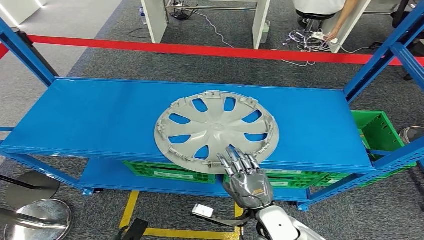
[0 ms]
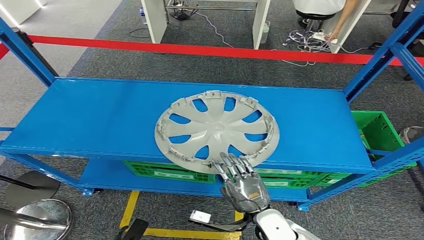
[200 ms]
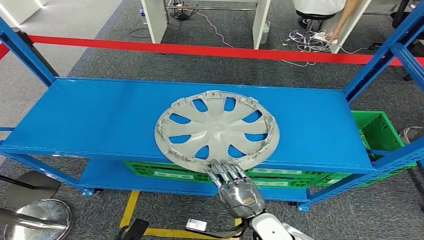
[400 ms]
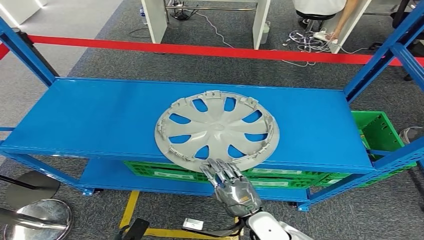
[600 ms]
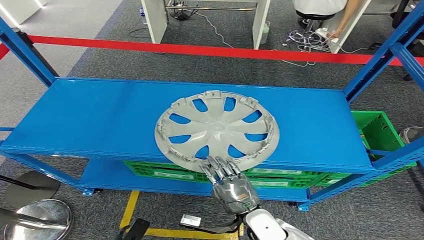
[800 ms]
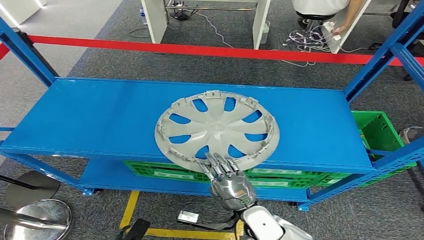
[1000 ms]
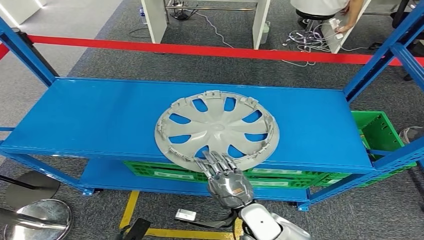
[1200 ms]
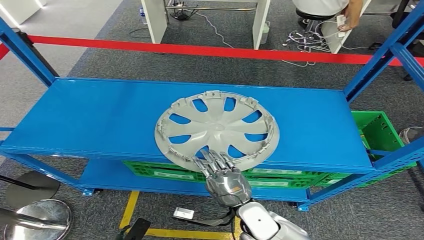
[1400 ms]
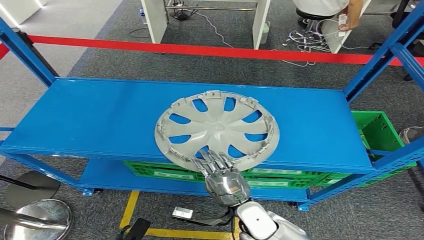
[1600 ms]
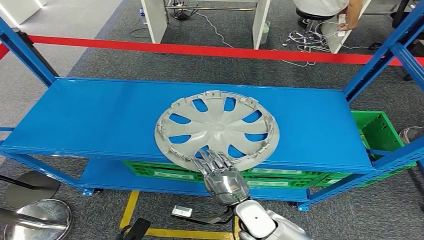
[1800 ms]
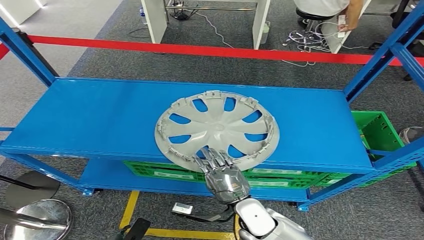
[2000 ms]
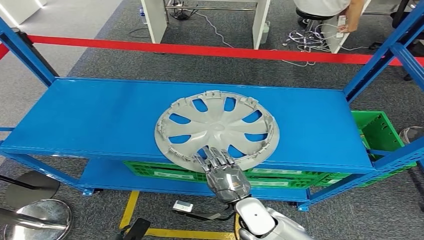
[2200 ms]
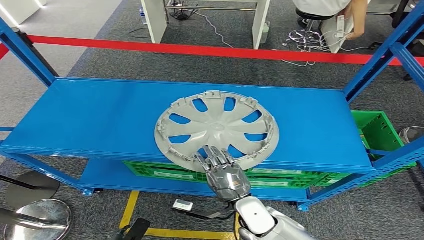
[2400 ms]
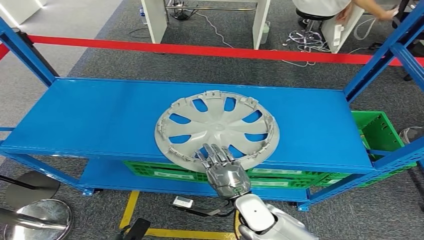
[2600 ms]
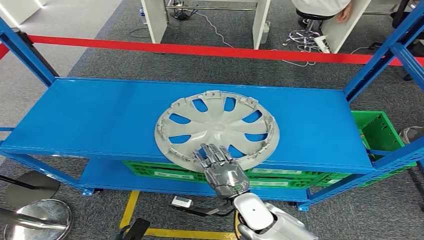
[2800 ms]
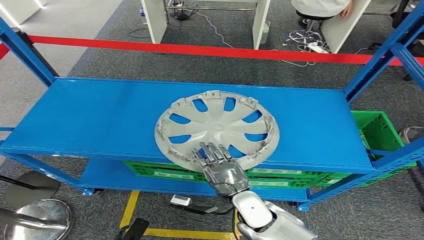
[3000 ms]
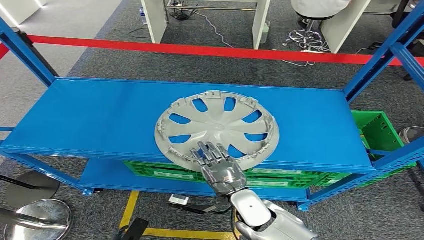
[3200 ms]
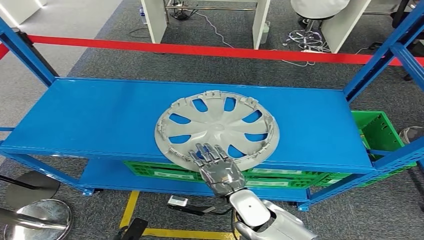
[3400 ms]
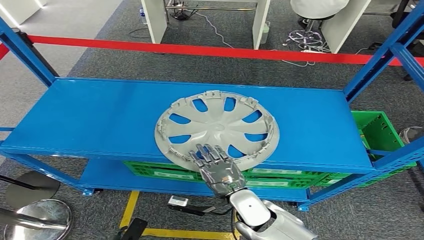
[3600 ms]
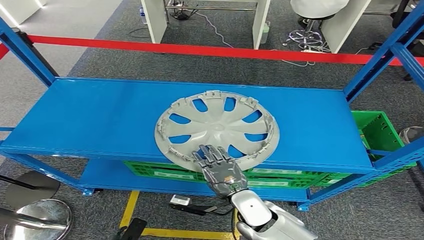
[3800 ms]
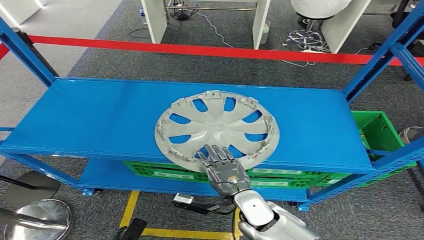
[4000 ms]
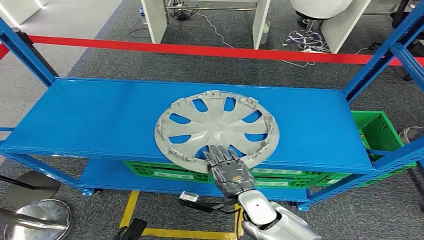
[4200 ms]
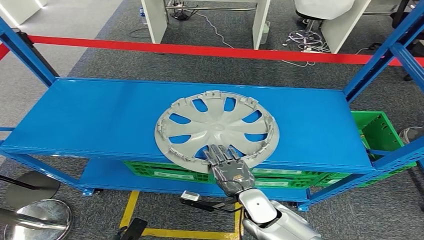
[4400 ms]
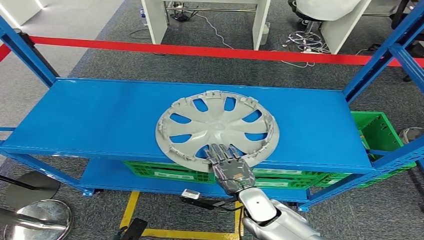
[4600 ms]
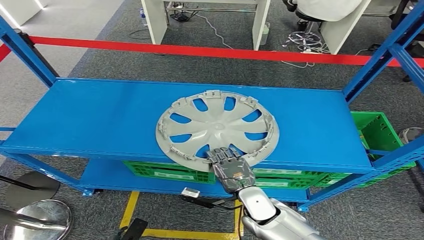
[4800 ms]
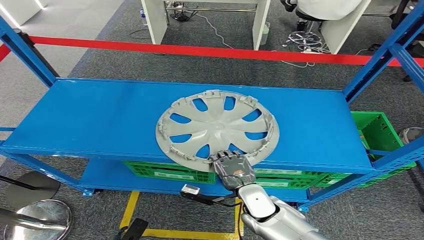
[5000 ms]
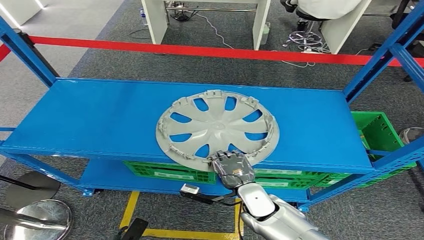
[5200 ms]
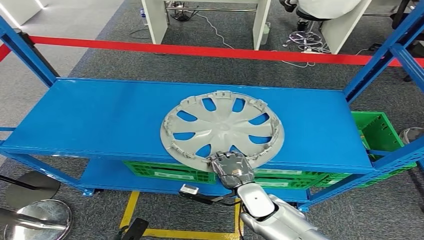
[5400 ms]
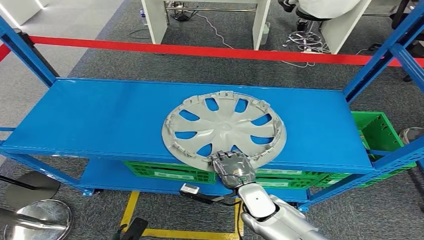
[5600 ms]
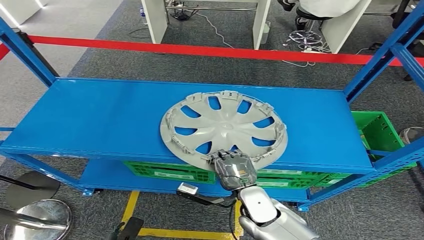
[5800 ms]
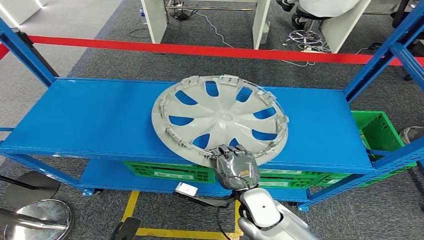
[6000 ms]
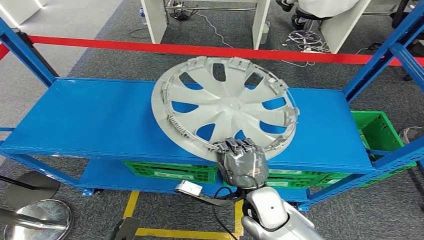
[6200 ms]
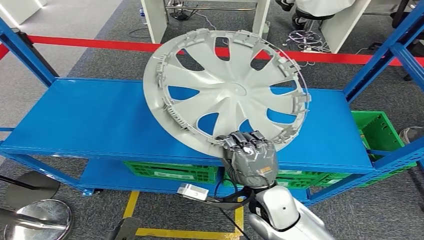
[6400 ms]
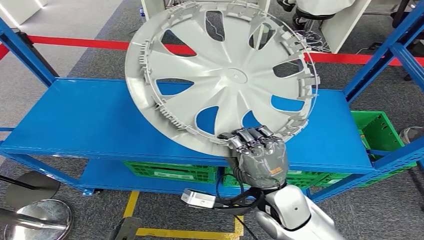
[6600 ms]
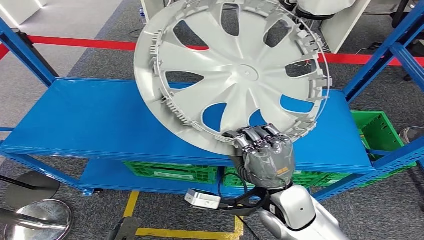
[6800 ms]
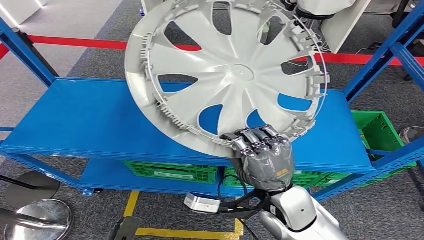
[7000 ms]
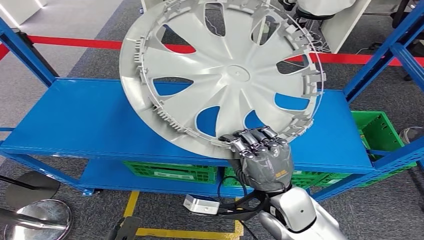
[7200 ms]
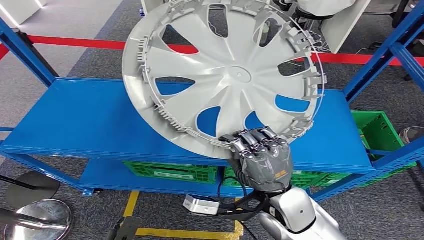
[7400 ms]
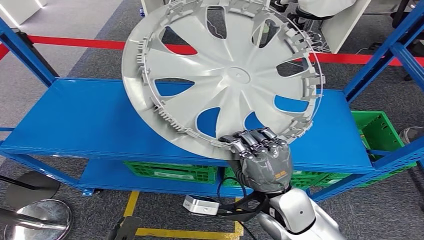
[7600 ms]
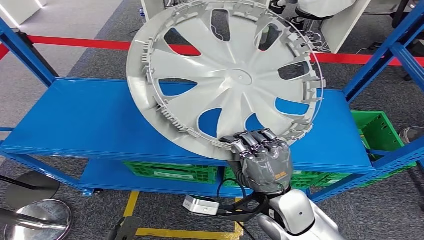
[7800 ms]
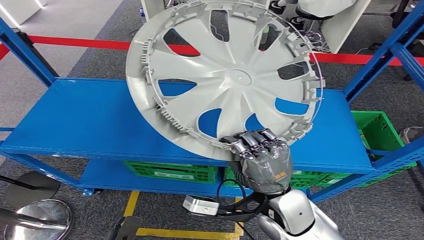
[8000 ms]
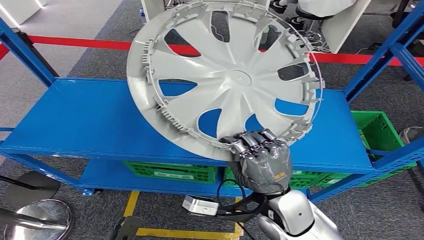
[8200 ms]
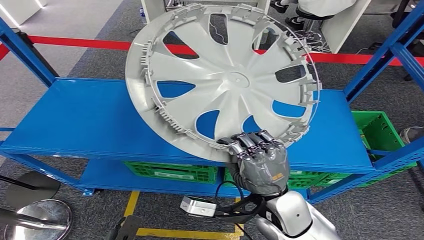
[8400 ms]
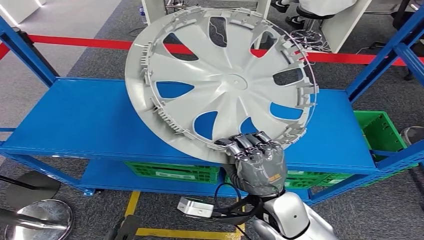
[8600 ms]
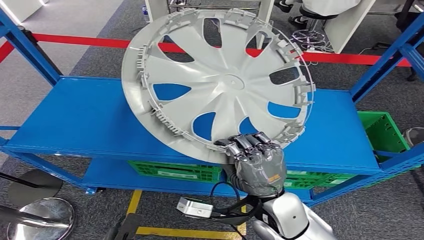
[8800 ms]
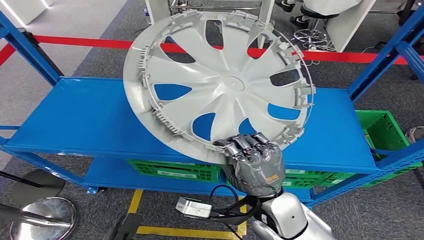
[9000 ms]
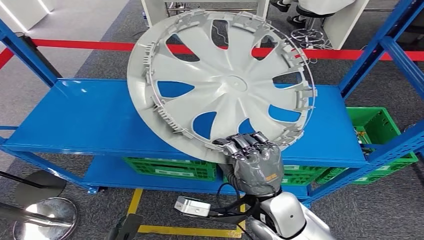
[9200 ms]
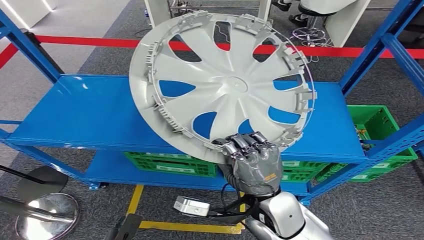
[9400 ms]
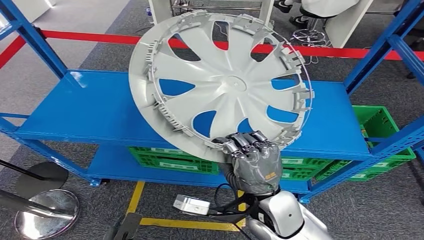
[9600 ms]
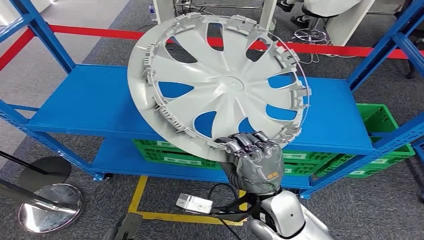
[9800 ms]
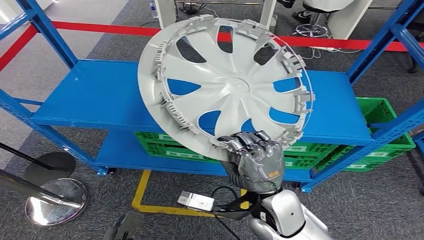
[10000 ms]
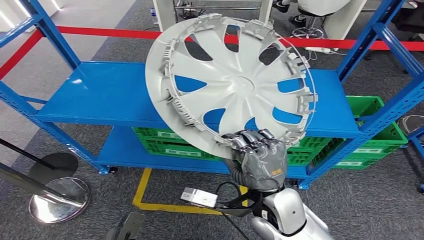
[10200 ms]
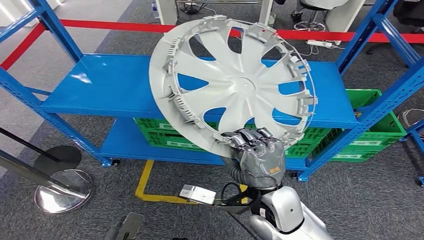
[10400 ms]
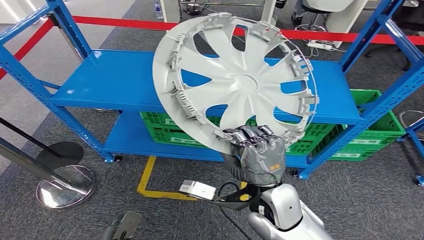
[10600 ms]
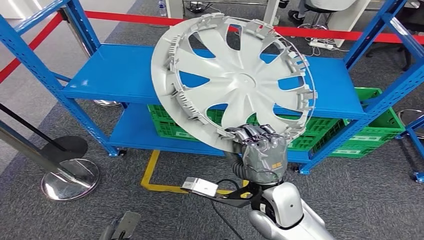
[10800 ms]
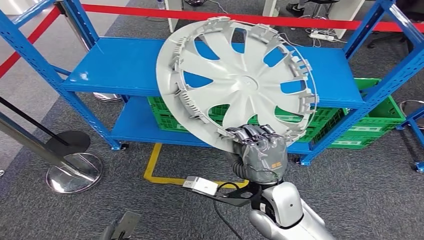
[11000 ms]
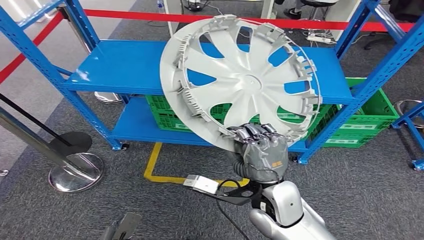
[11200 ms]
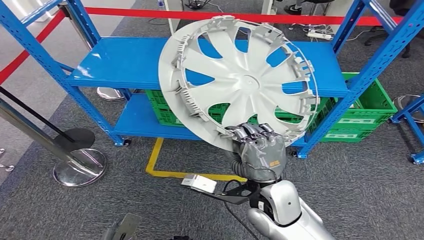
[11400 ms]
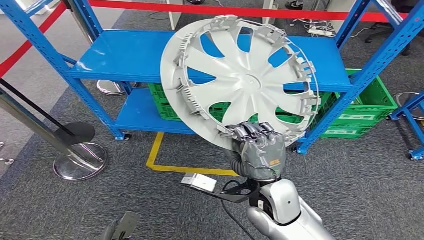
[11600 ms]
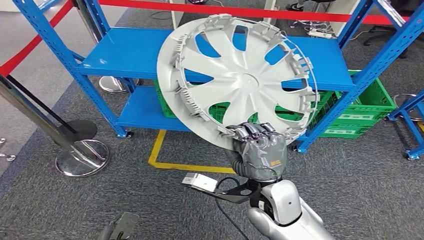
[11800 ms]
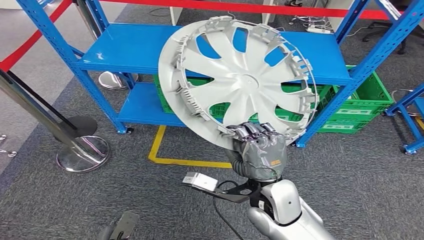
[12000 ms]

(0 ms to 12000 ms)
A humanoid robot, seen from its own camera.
Step, 0 ms - 6800 ms: Pick up the small parts from the shelf.
0 ms - 3000 ms: The hands move only a little.
3000 ms - 4400 ms: The hands stay close to where they were, moving slightly.

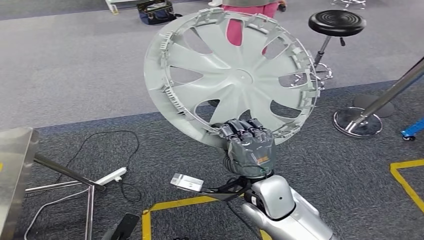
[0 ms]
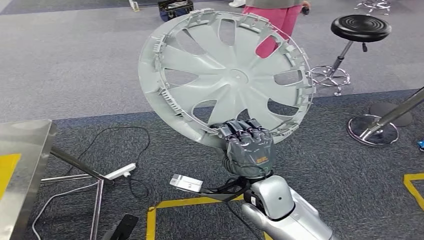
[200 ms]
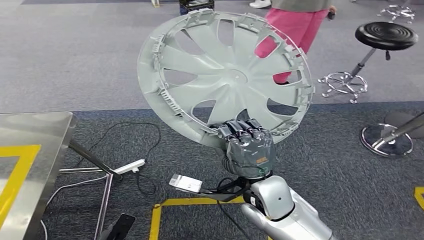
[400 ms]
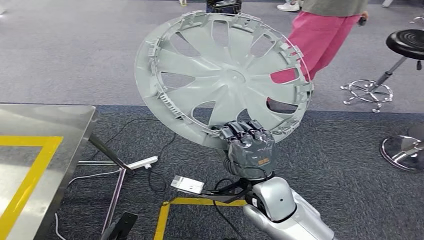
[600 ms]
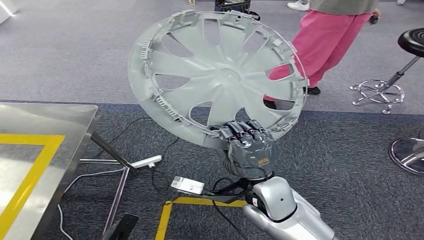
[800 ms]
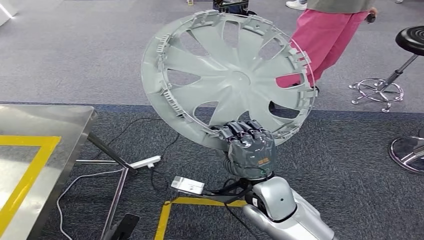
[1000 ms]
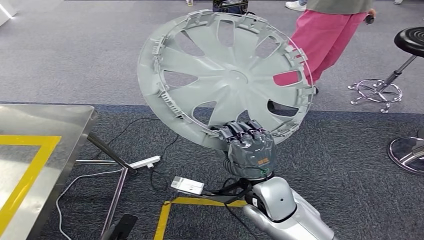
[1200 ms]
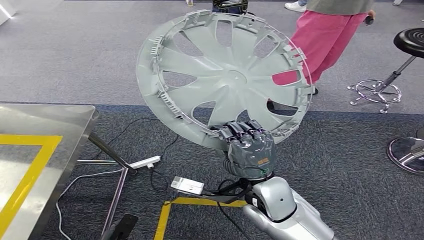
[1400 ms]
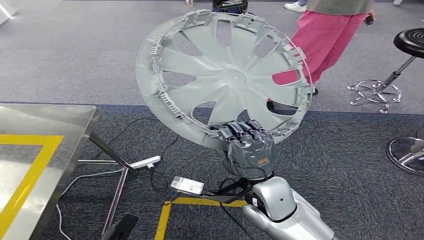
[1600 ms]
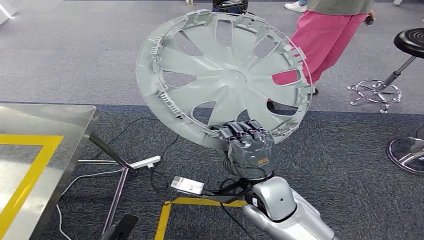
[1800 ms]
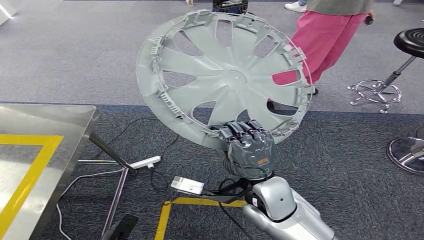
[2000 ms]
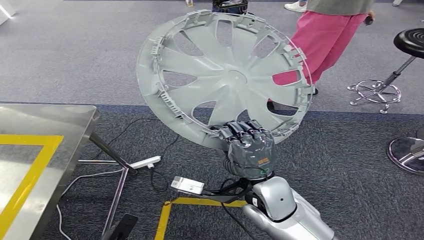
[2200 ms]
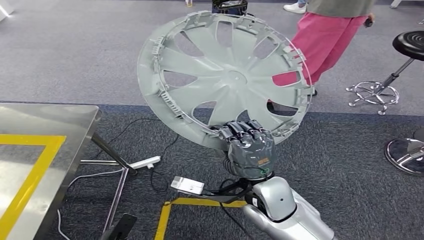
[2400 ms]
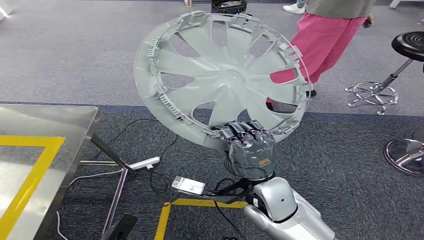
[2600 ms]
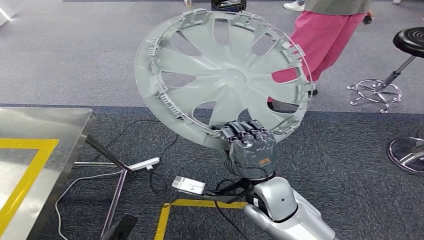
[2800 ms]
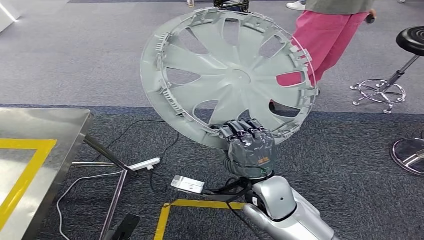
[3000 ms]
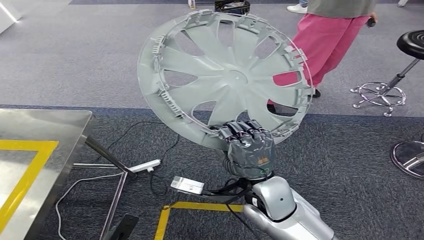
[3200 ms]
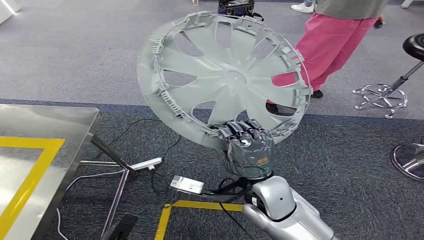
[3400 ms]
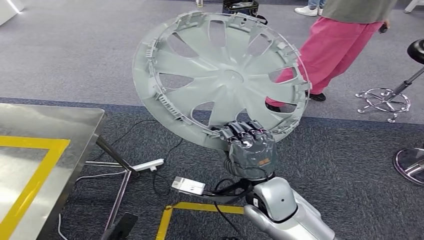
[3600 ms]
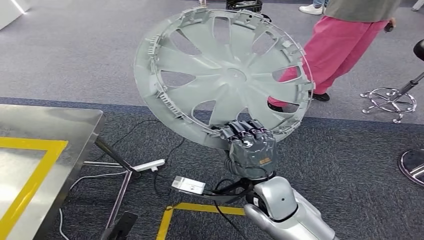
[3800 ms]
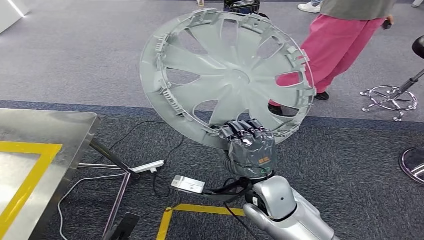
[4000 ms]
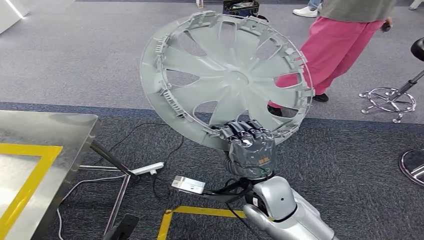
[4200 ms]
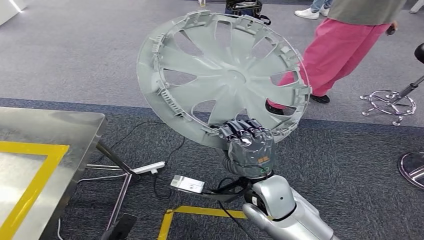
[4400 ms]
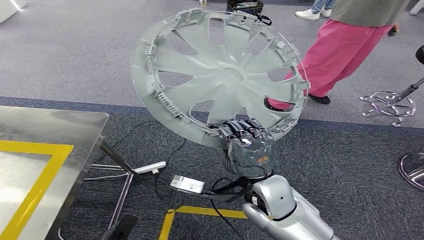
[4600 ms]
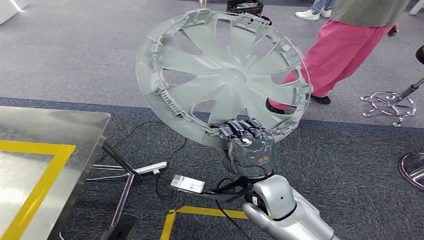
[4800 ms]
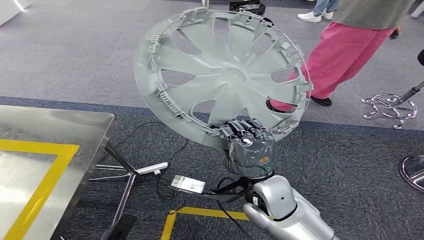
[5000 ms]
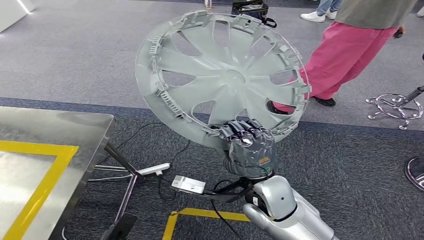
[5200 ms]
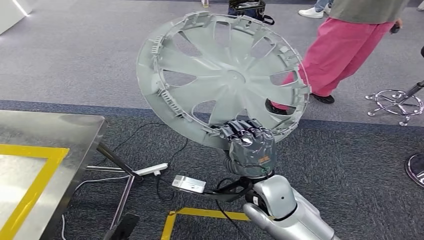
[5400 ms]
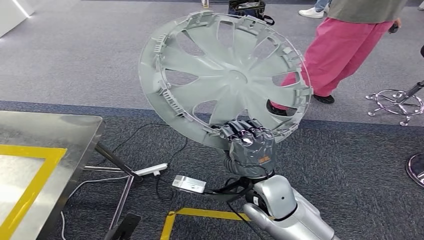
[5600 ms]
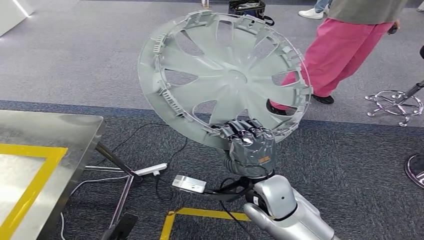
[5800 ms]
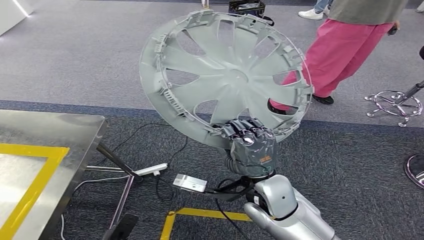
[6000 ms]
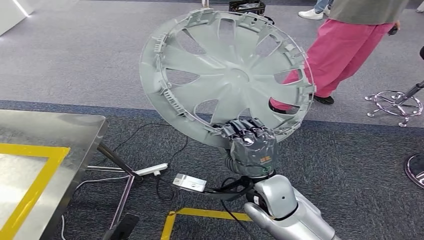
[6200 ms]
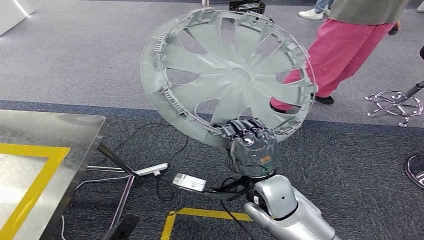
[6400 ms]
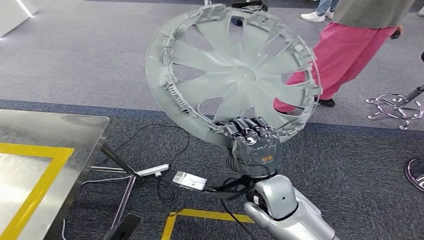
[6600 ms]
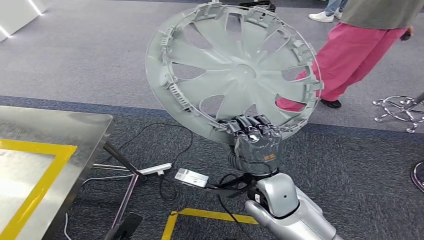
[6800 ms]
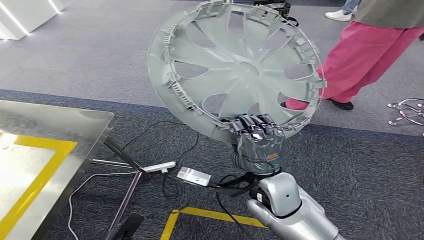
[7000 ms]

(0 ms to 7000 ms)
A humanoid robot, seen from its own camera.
Step, 0 ms - 3800 ms: Move the small parts to the workbench.
1400 ms - 5600 ms: Both hands stay put.
